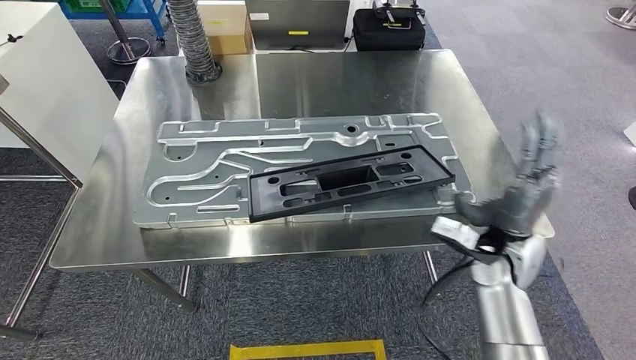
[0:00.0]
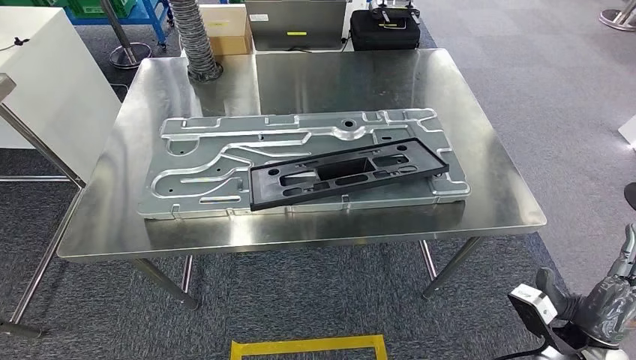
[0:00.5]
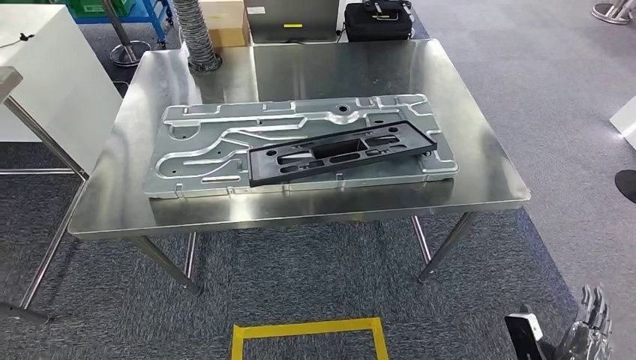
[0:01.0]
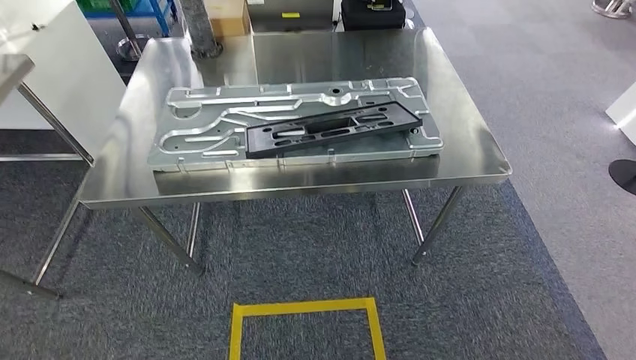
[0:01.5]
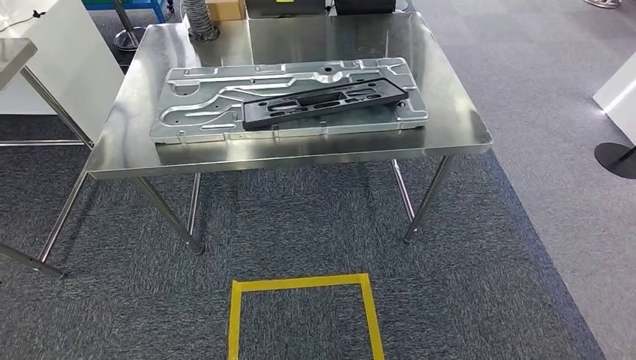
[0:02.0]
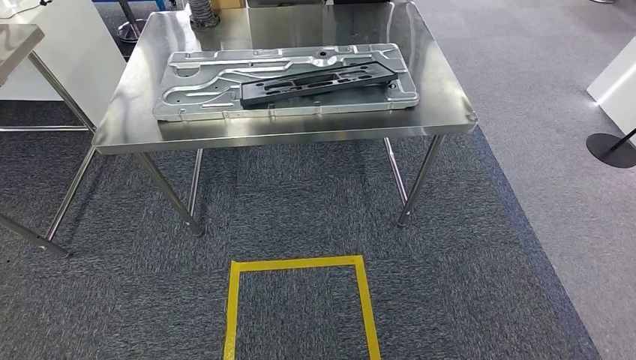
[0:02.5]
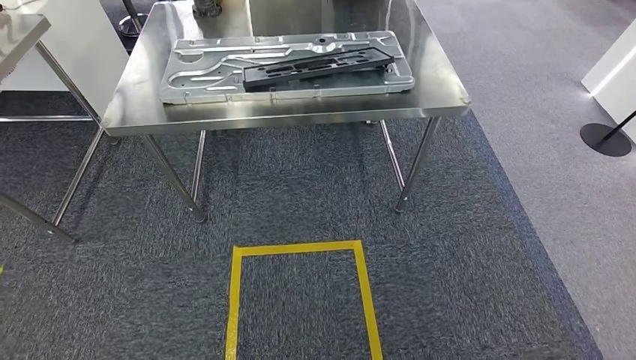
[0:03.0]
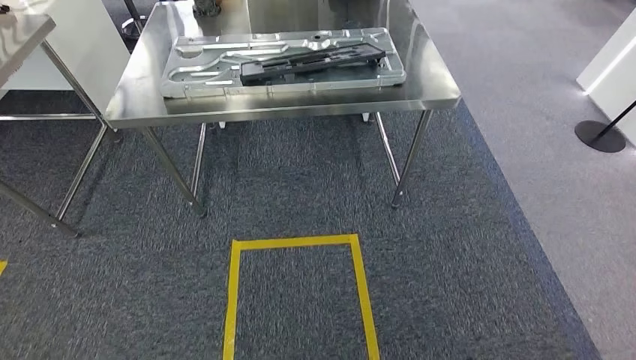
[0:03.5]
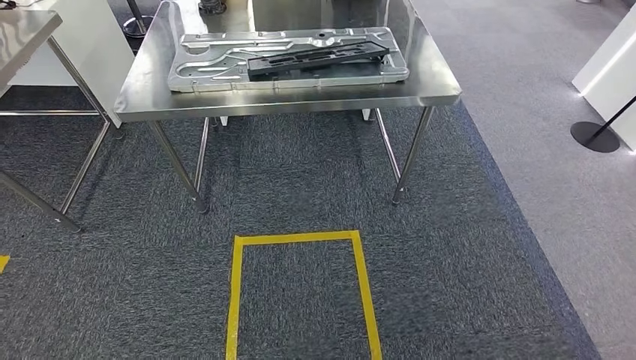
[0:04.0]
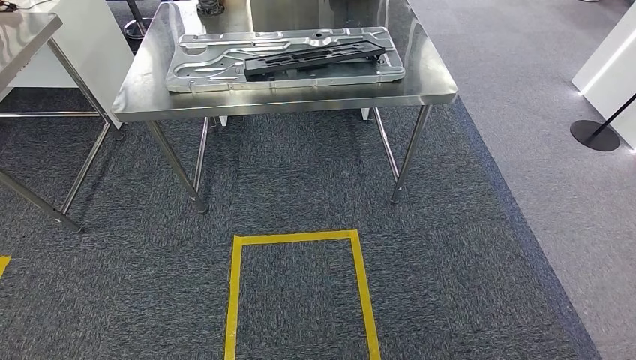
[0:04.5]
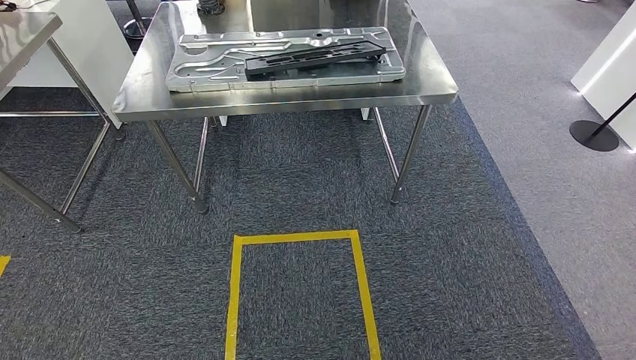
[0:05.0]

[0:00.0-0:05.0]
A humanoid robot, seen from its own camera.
Step, 0:01.0 to 0:05.0: Move to the initial position of the shelf.
